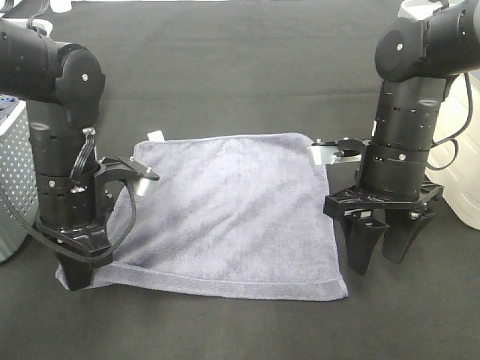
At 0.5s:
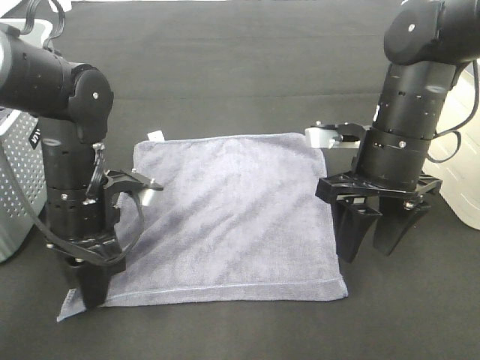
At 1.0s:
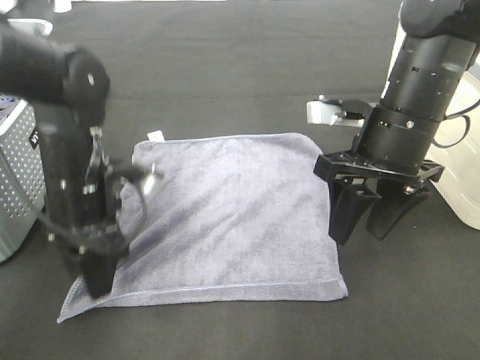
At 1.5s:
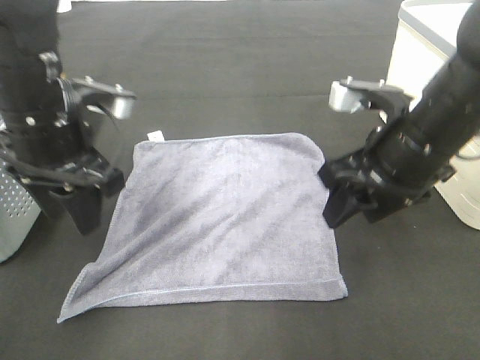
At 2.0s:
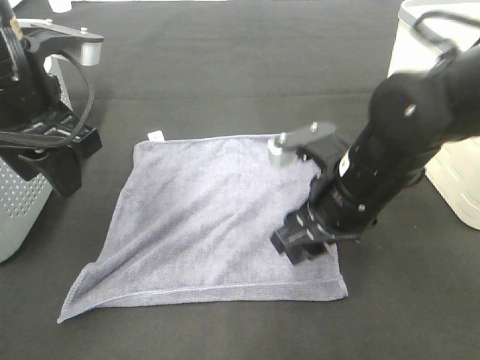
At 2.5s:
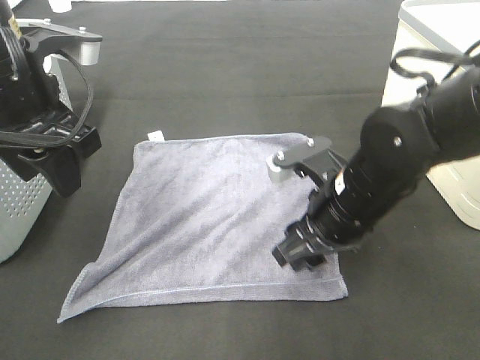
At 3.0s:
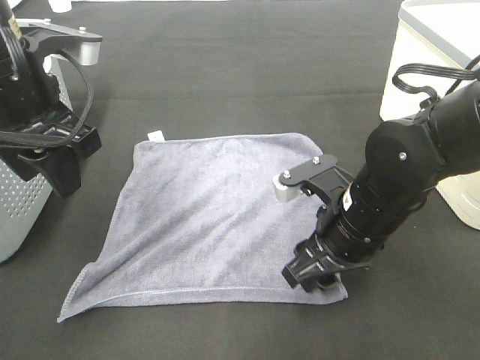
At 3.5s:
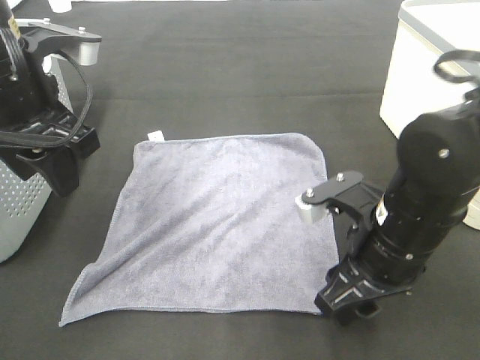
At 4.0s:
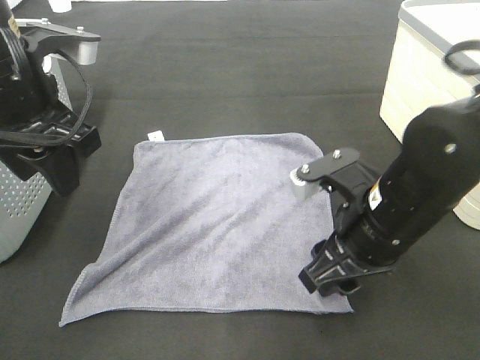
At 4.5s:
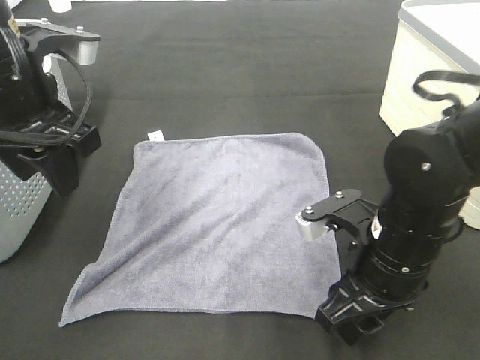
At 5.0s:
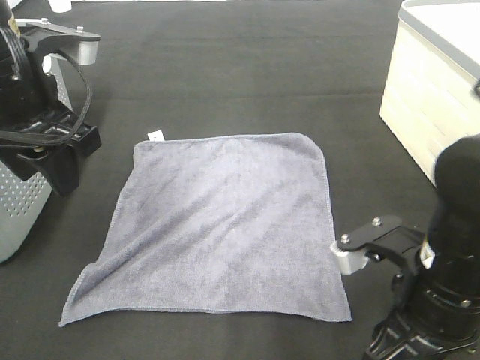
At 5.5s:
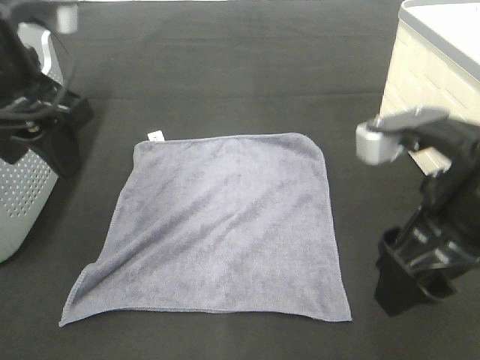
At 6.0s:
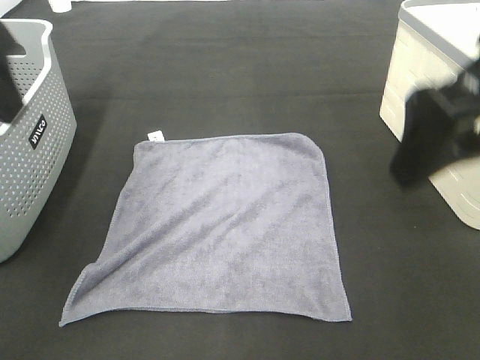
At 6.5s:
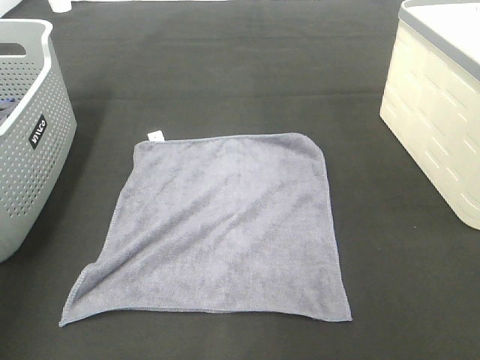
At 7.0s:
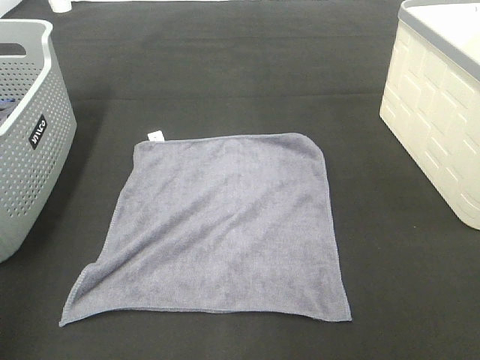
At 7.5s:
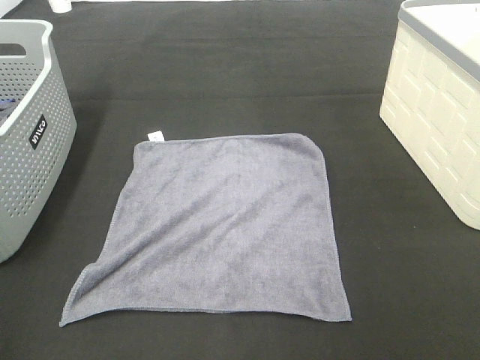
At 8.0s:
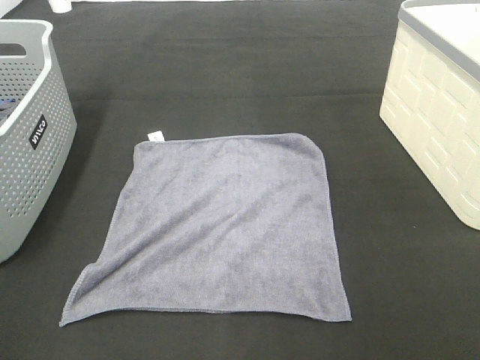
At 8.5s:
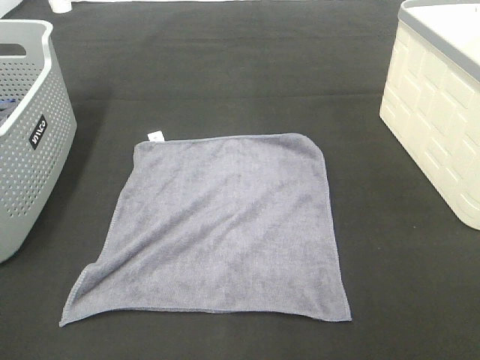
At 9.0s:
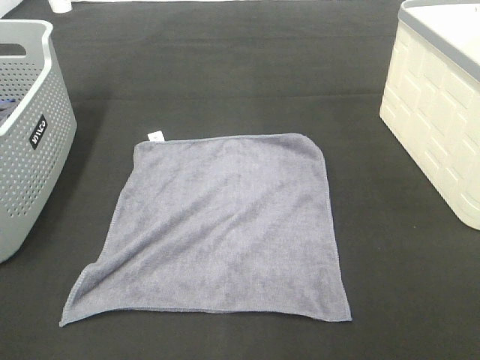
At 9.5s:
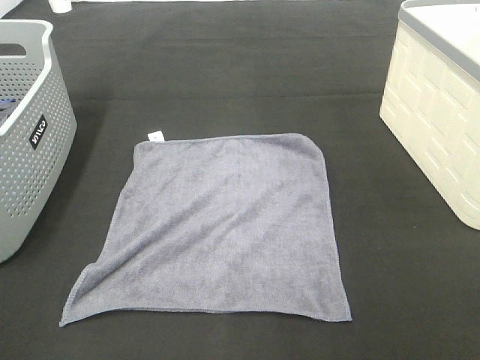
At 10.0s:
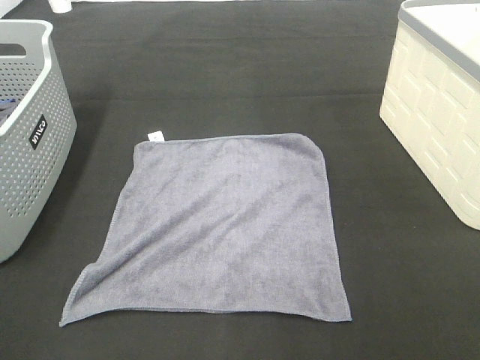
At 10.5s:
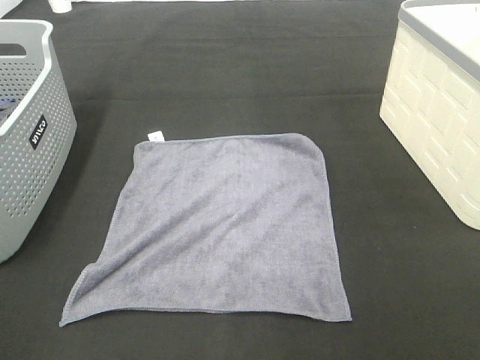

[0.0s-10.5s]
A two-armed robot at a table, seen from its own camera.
Task of the whole recording: Remove the towel and place it.
0.0s to 2.0s: The right gripper heads to the left, covering some 5 cm. The left gripper shifts roughly 15 cm upward, and opens.
4.0s to 6.5s: The left gripper is displaced to the left, upward and backward by some 25 cm. The right gripper travels upward and to the right by roughly 25 cm.

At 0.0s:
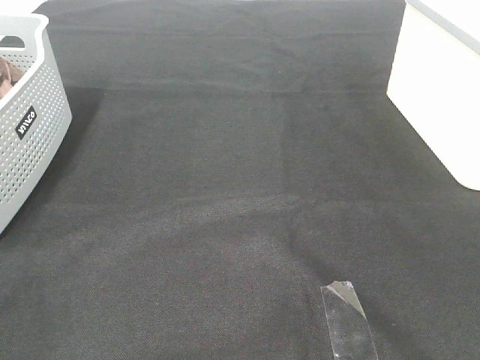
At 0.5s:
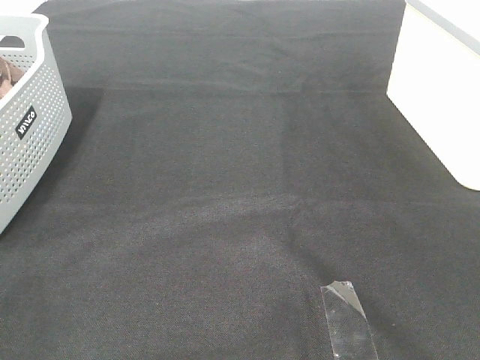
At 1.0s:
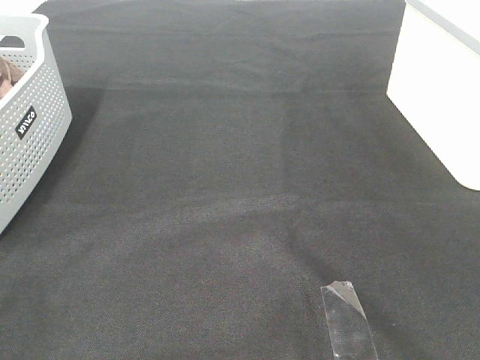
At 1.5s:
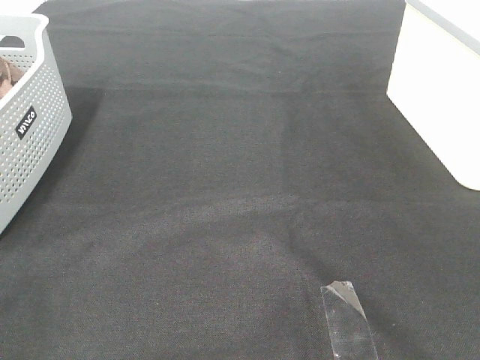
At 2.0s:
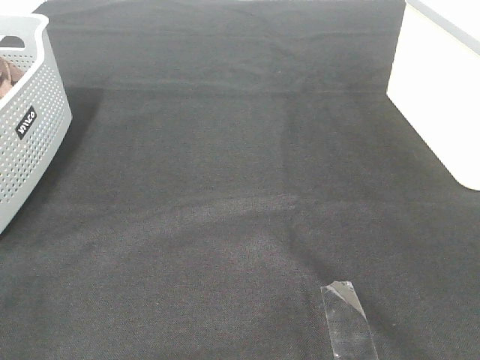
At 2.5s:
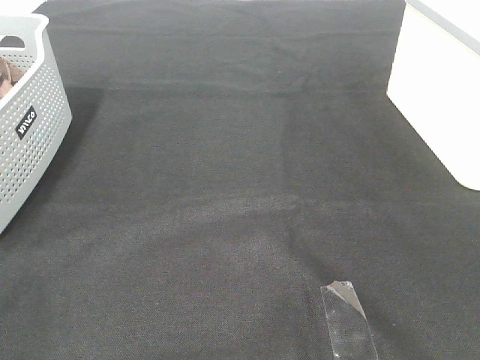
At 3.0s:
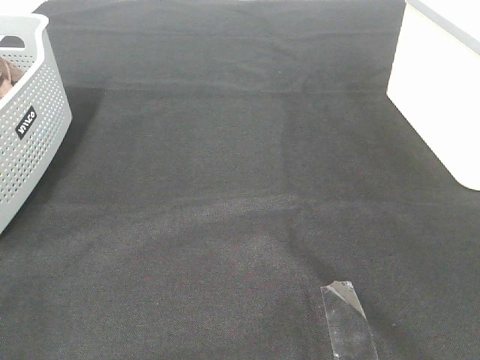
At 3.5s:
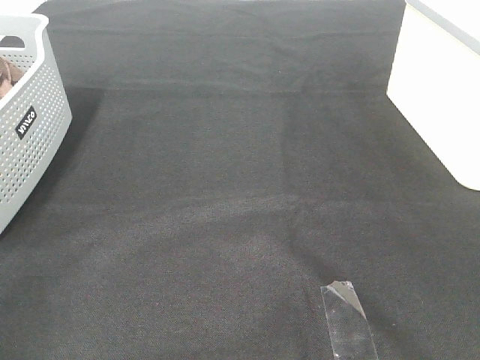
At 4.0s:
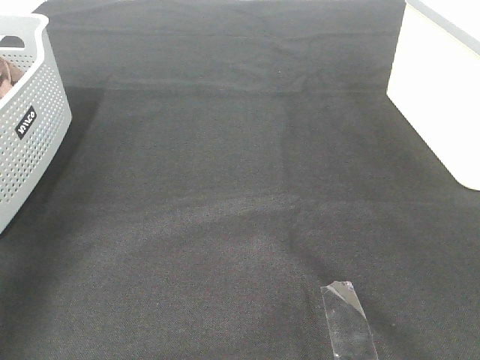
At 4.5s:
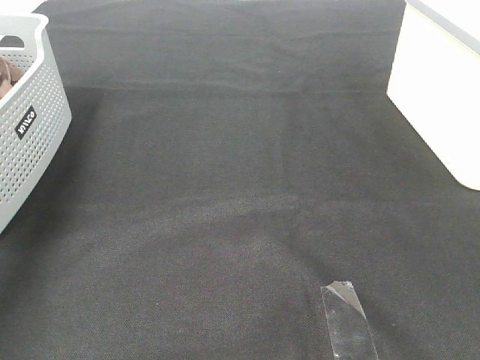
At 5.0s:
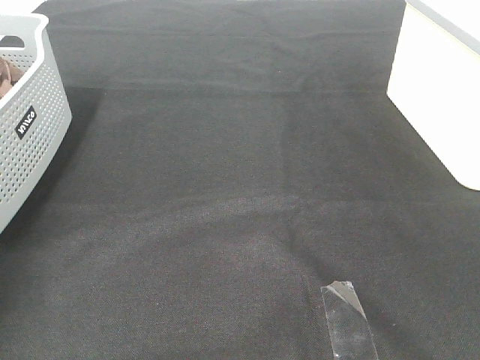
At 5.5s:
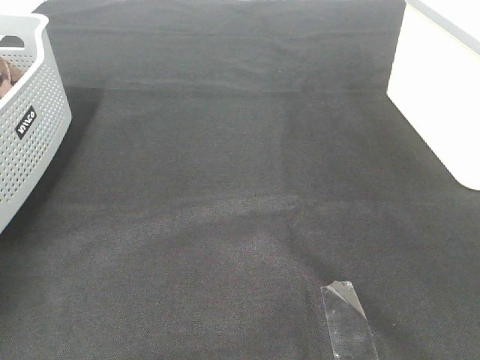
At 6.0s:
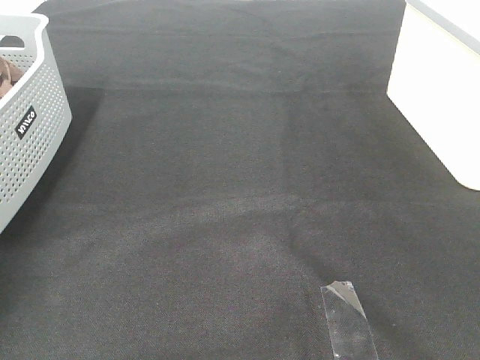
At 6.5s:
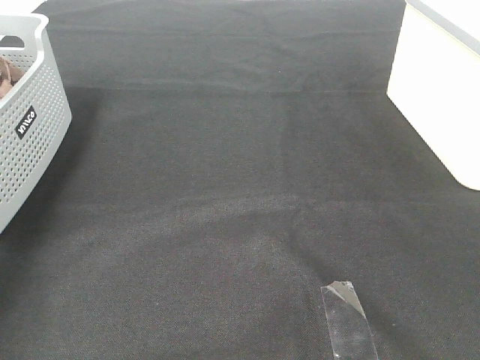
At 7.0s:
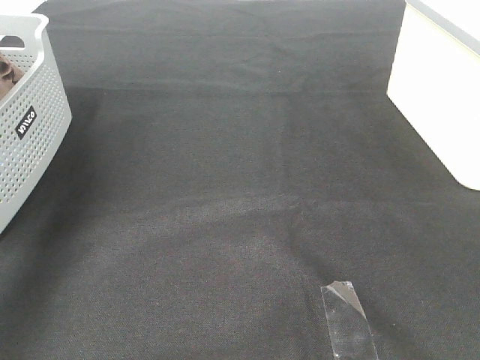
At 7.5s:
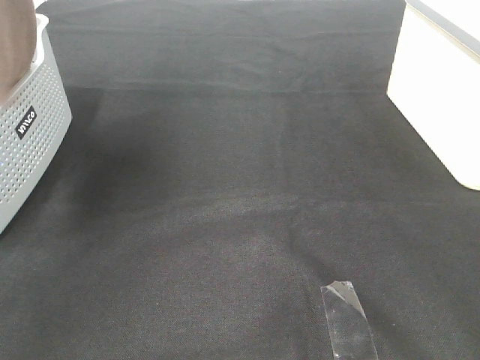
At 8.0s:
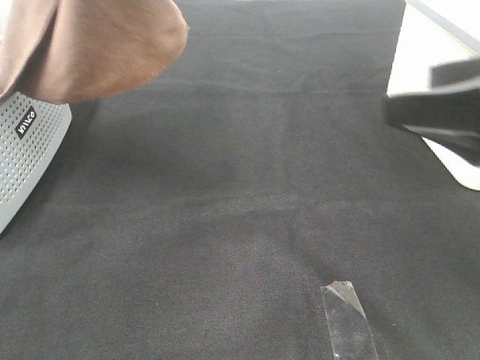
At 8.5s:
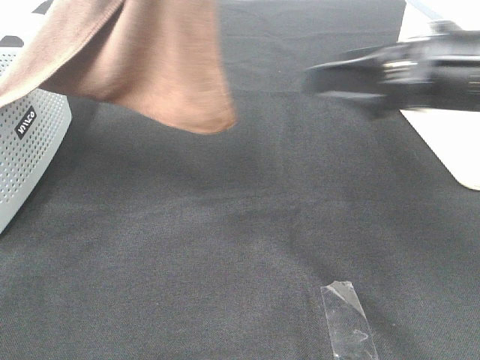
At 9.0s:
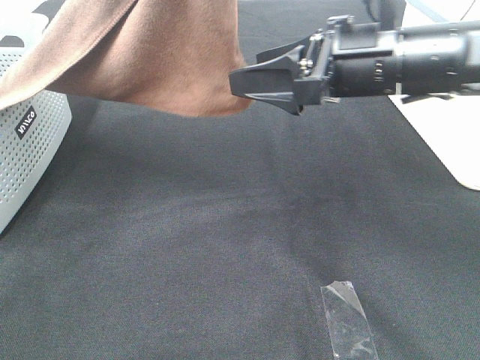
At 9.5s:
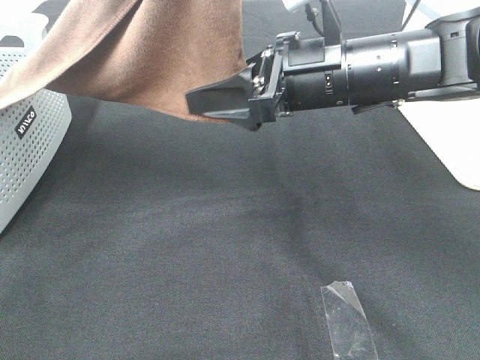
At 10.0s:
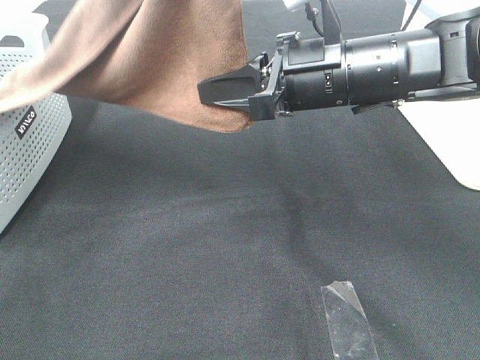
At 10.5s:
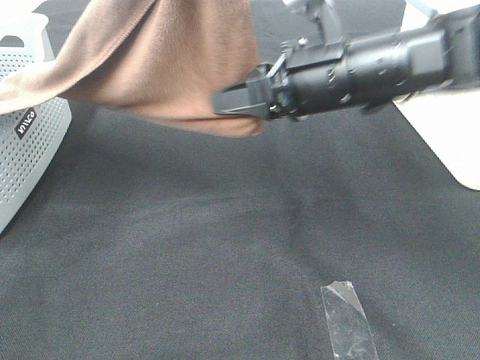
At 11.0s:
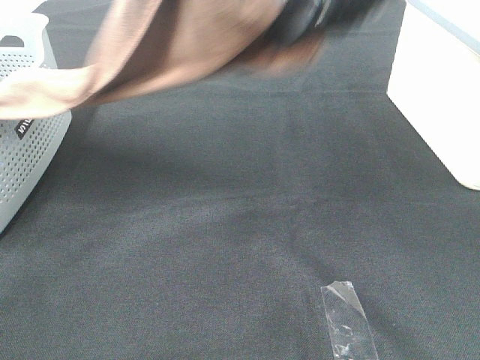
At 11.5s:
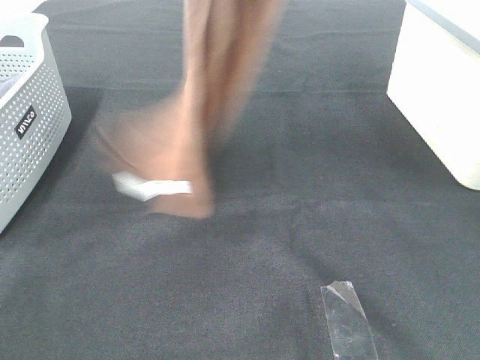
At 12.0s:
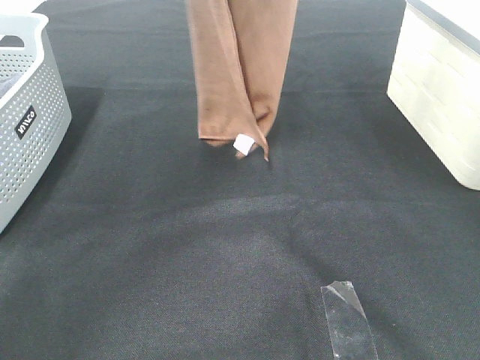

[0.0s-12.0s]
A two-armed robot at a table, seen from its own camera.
Task of the whole recording: Remove the towel and place it.
Step, 7.0s to 10.0s: Right hand: grab a corner of the brown towel and straighten it.
0.0s to 2.0s: Both grippers stay about where they are.
2.0s to 4.0s: The left gripper moves forward and upward, about 30 cm.
4.0s to 6.0s: The left gripper shifts approximately 30 cm forward and downward, and closes its fingers.
6.0s to 8.0s: The left gripper goes some 40 cm upward, to the right and backward. The right gripper travels forward by about 20 cm.
8.0s to 10.0s: The left gripper shifts some 5 cm to the right. Meanwhile the right gripper goes roughly 20 cm to the left, forward and downward, and closes up.
10.0s to 12.0s: The right gripper shifts roughly 30 cm upward, while the left gripper is displaced forward and to the left by approximately 15 cm.

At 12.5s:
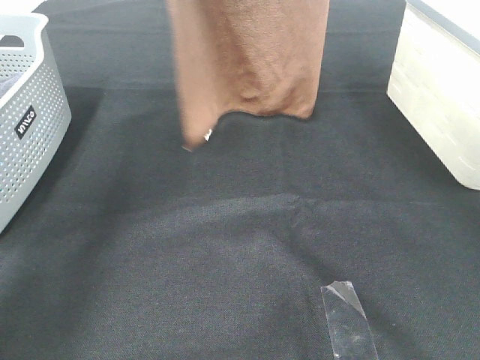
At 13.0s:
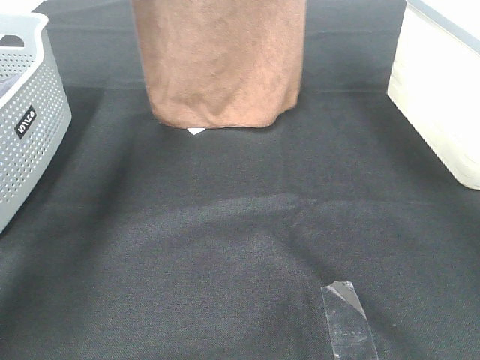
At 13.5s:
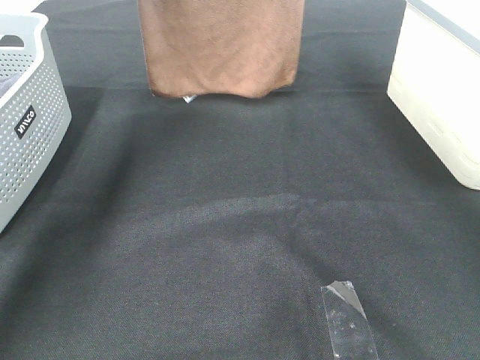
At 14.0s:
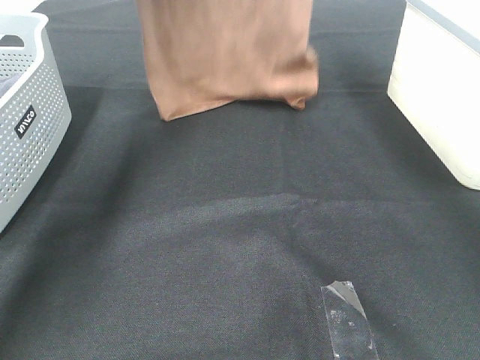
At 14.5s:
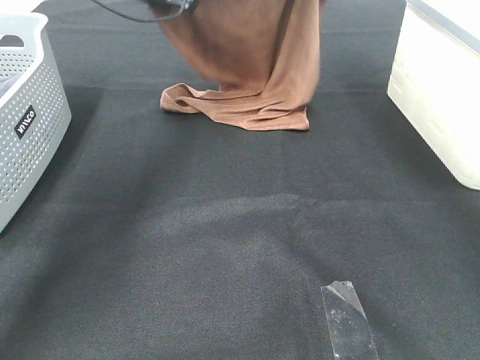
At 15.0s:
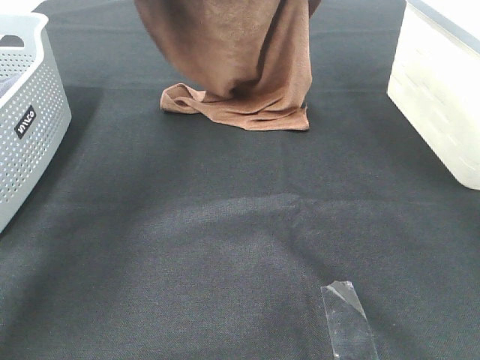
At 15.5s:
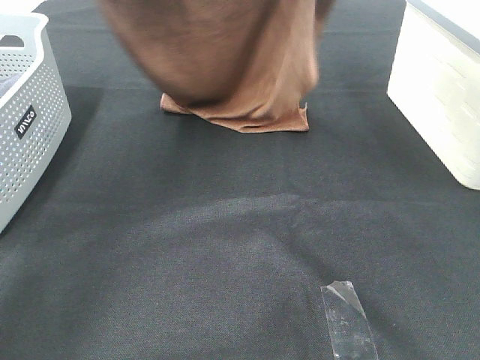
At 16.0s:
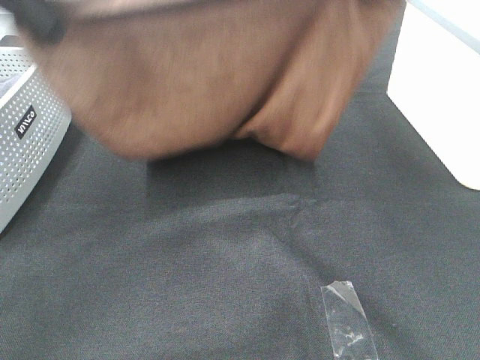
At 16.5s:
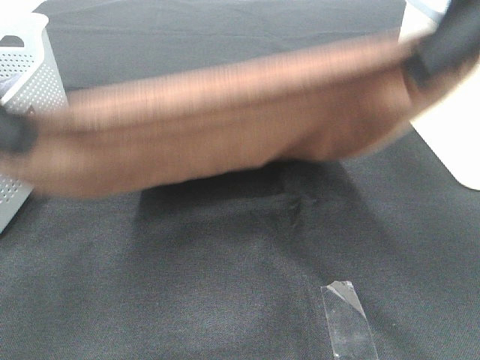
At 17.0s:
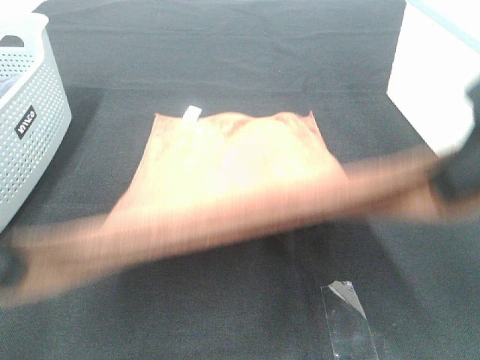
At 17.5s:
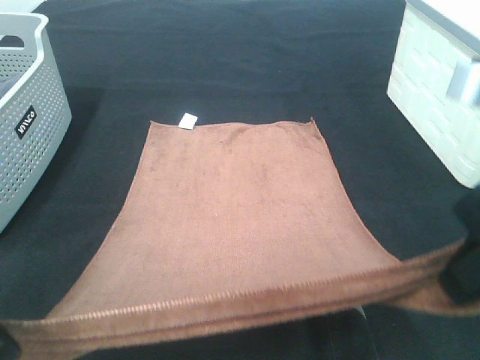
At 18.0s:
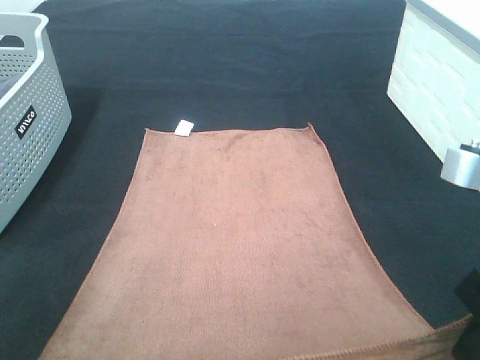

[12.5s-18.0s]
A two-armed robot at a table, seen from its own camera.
Task of the whole recording: Remove the towel and place it.
Step, 12.5s to 16.5s: Left hand: spread the brown towel flat on the table.
Step, 12.5s to 16.5s: Right hand: spread the brown towel flat on the table.
12.5s to 14.5s: The left gripper heads downward and forward, covering approximately 20 cm. The right gripper shifts approximately 15 cm downward.
14.5s to 16.0s: Both grippers move backward, roughly 25 cm.
16.0s to 18.0s: The left gripper goes roughly 20 cm backward and downward. Meanwhile the right gripper travels downward and backward by some 25 cm.
